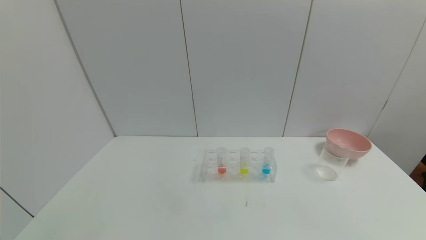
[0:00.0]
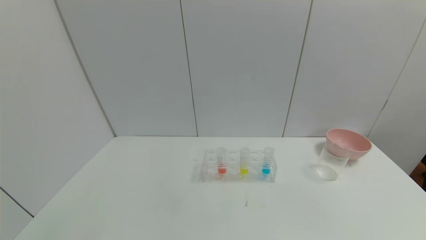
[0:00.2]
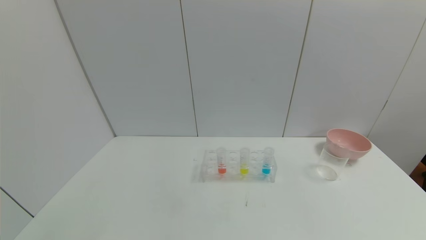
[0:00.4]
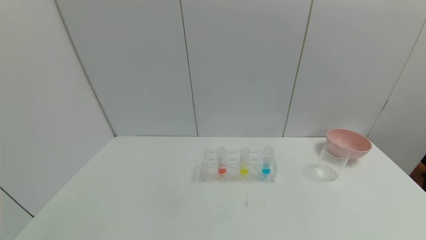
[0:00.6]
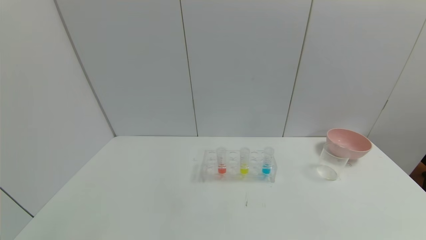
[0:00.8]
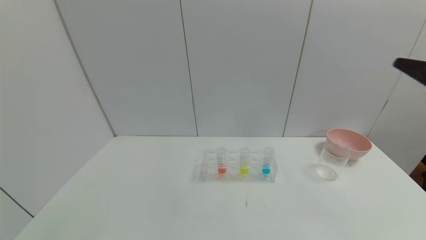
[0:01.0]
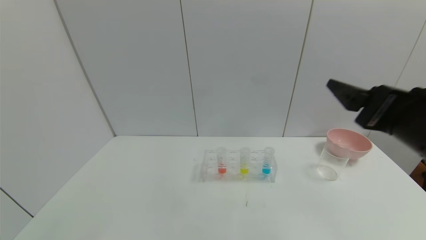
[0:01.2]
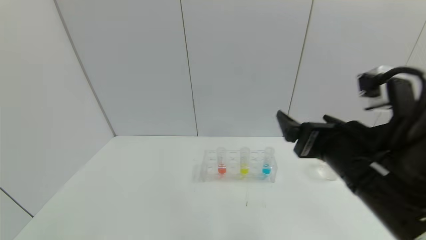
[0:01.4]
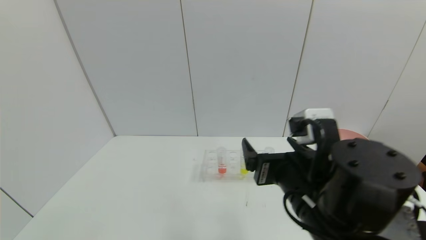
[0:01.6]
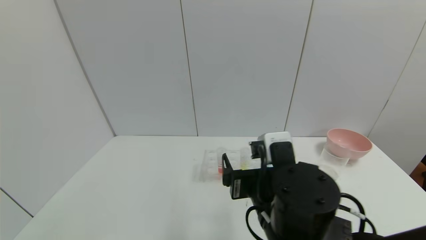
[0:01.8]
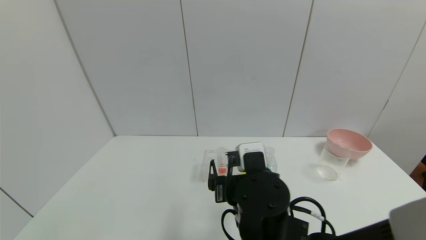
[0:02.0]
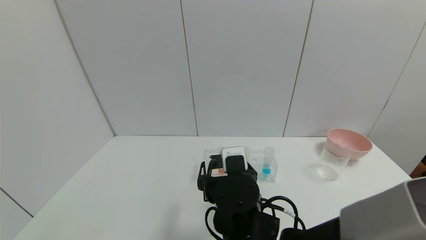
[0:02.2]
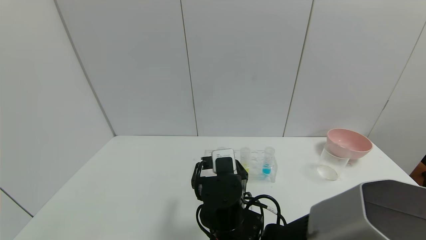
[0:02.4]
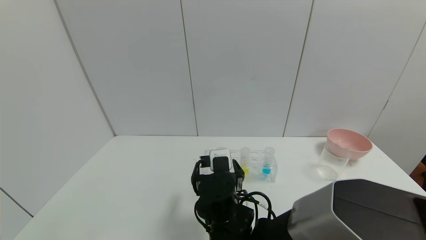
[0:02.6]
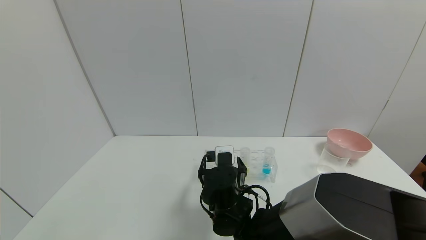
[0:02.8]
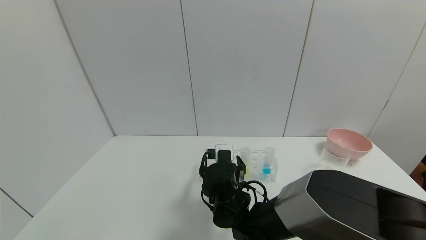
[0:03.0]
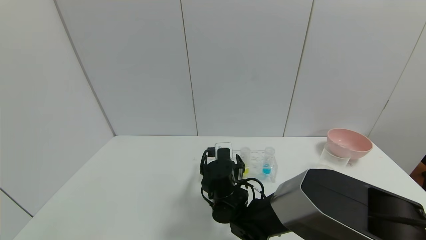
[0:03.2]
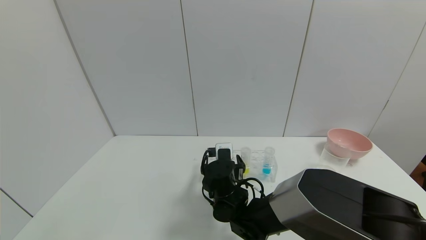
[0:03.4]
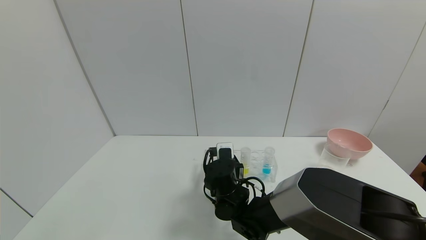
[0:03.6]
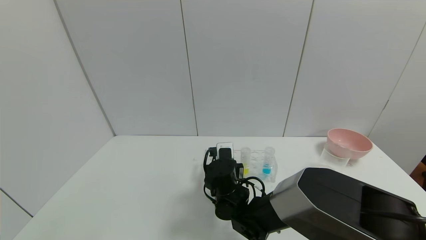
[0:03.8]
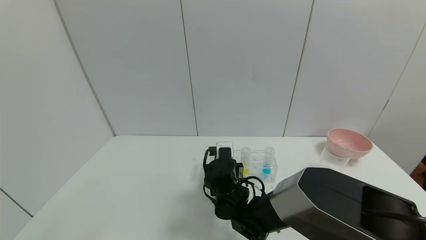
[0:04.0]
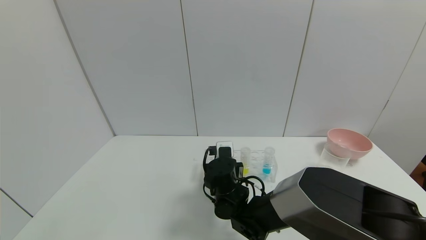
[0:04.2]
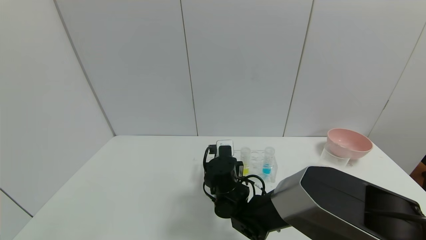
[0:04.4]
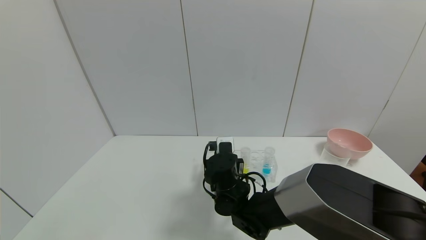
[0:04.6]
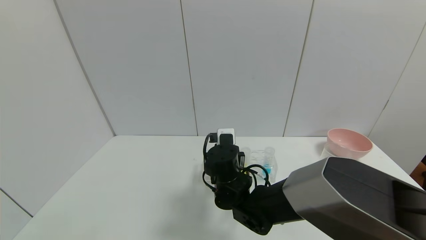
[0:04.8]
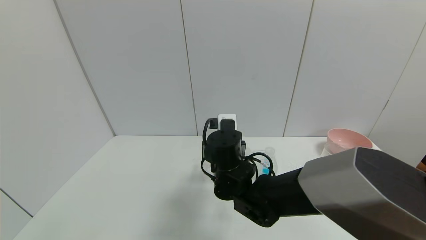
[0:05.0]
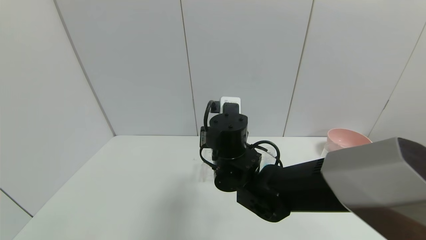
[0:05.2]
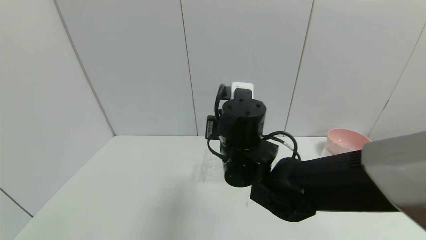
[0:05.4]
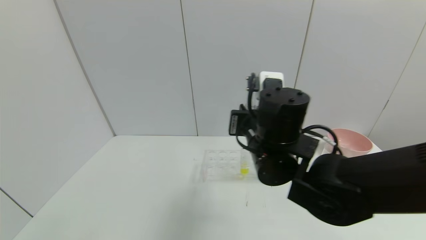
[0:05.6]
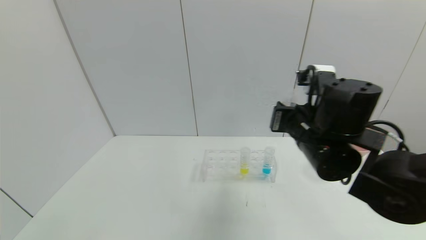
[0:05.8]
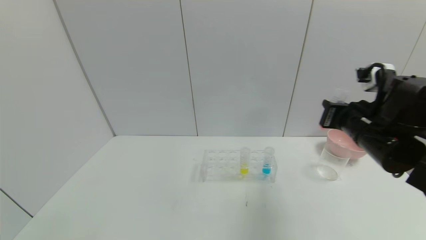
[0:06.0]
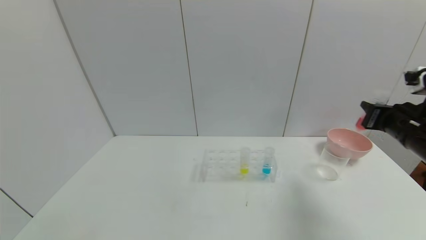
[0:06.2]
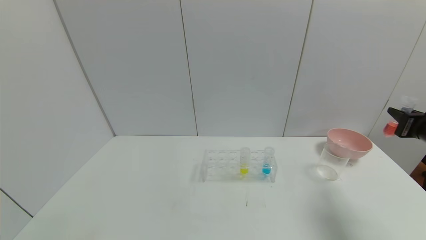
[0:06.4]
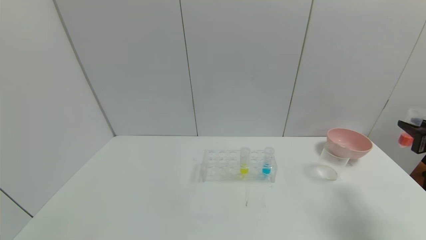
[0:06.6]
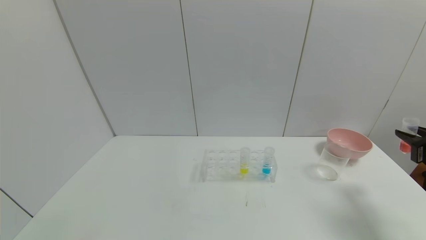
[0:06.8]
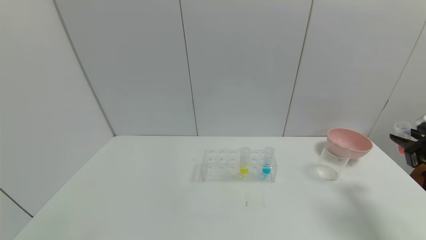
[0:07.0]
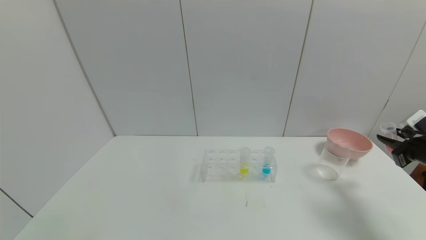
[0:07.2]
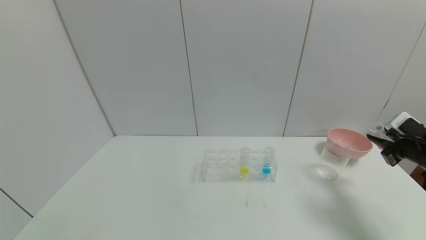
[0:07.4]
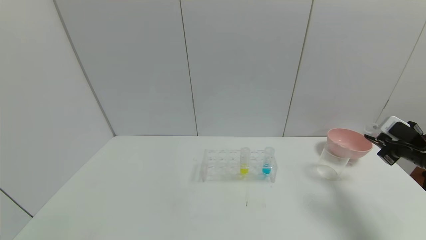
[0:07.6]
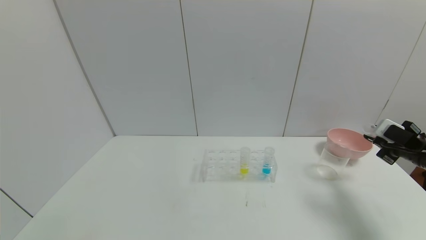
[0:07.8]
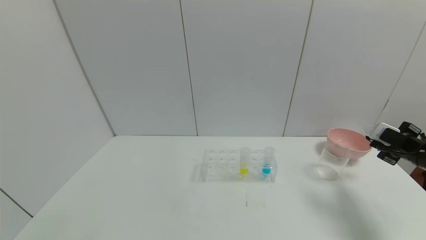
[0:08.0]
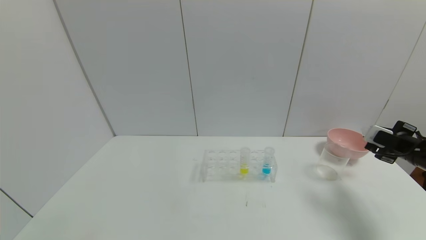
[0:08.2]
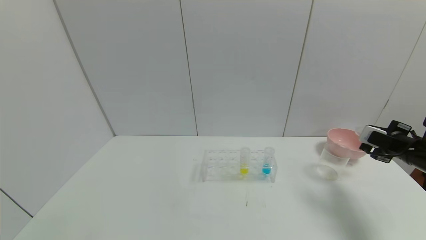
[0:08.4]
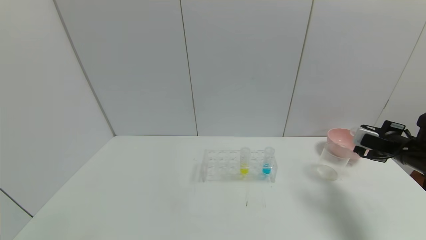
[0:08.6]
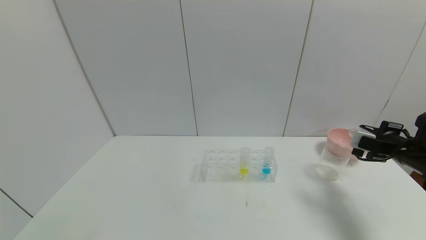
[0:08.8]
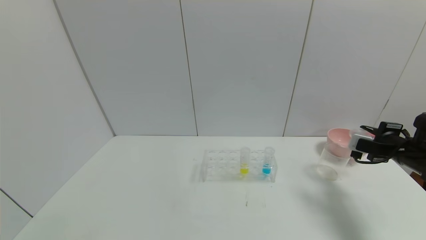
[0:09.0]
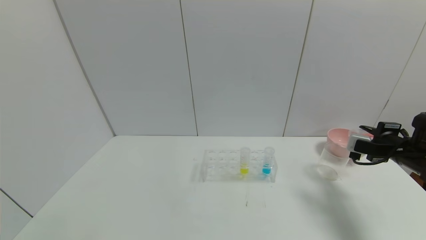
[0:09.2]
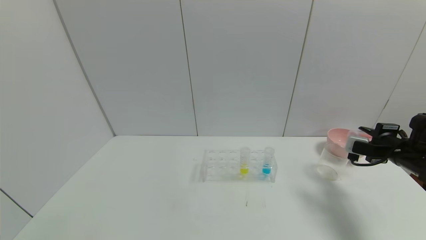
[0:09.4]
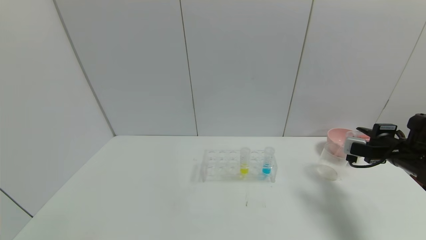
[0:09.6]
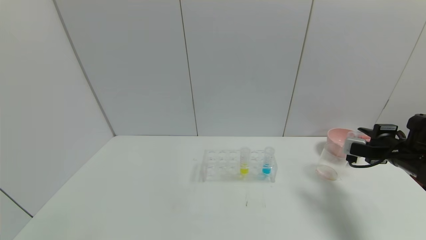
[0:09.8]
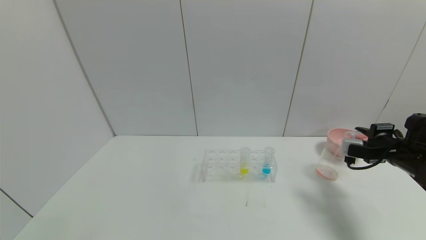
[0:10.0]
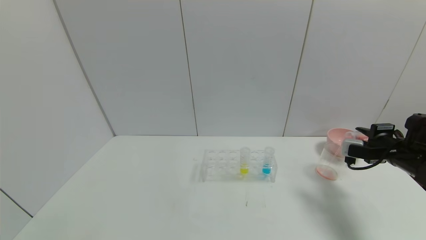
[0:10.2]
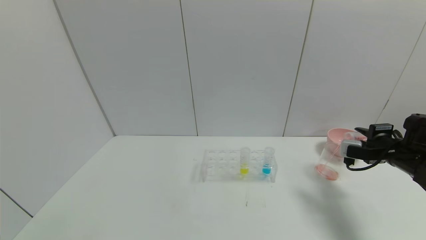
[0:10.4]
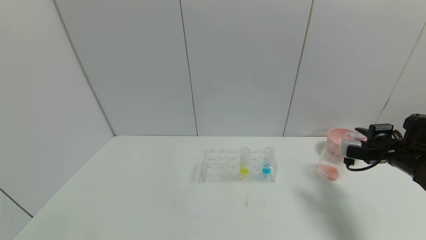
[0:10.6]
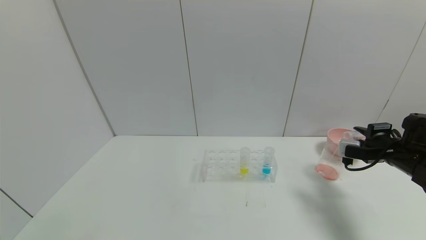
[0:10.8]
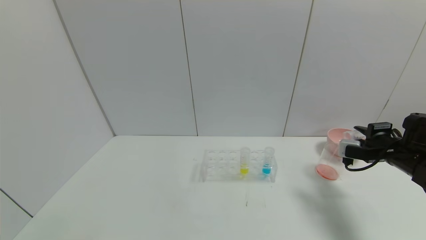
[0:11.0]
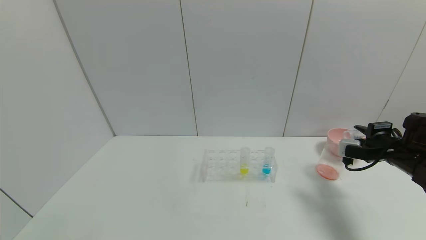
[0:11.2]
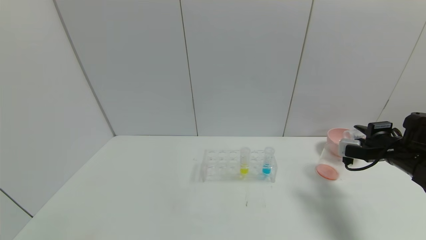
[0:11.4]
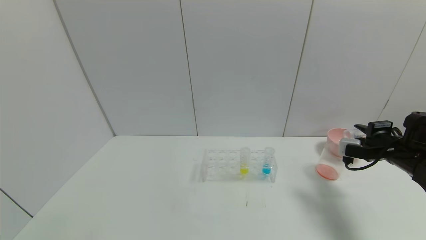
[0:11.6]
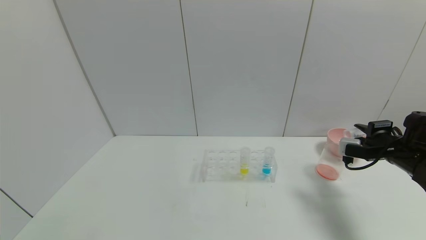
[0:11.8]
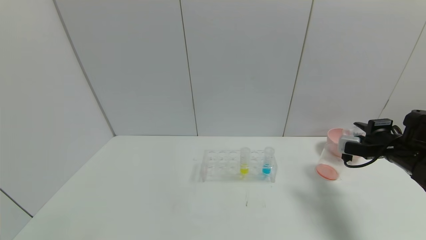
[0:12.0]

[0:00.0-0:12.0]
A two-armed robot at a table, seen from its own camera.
Task of the whole recording: pick up the test tube with yellow pigment and the test tube with red pigment by grippers and pour them into the beaker.
Step, 0:00.0 to 0:05.8: Pick up the test tube containing the red reagent with right gripper.
0:00.0 to 0:01.6: The right gripper travels to the left and forward by some 35 cm.
0:01.6 to 0:03.0: The right gripper heads downward, forward and to the left, covering some 20 cm.
0:03.0 to 0:04.4: The right gripper closes its fingers.
0:04.4 to 0:06.0: The right gripper heads to the right and upward, covering roughly 30 cm.
0:06.0 to 0:07.6: The right gripper is displaced to the right and downward by some 20 cm.
0:09.0 to 0:10.4: The grippers move only a little.
0:10.4 to 0:12.0: The two grippers keep their place.

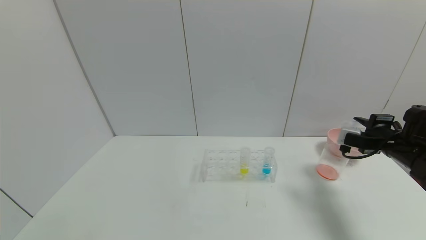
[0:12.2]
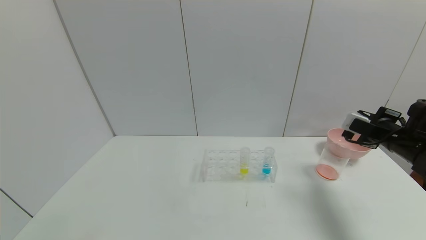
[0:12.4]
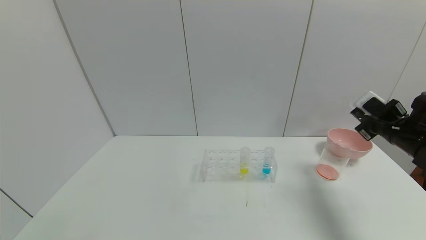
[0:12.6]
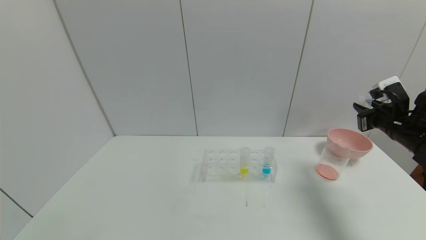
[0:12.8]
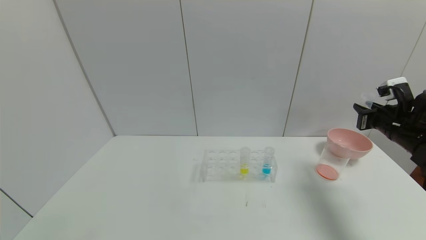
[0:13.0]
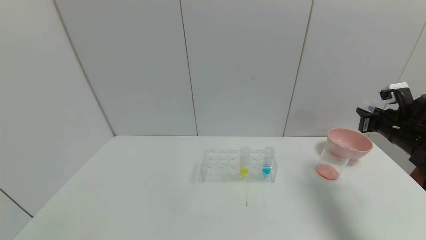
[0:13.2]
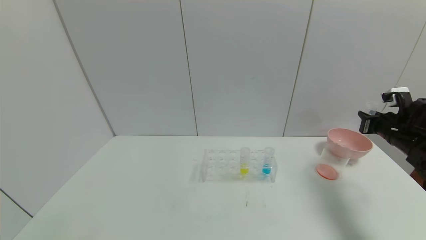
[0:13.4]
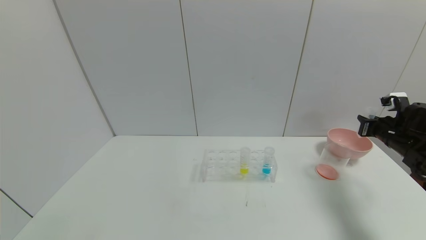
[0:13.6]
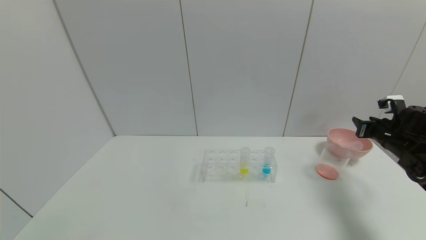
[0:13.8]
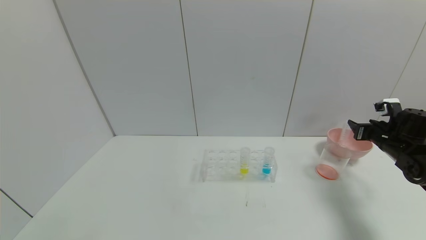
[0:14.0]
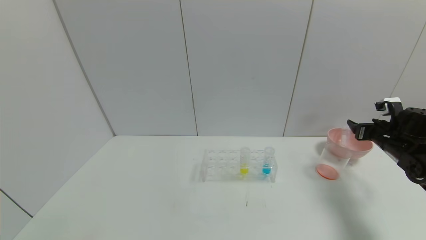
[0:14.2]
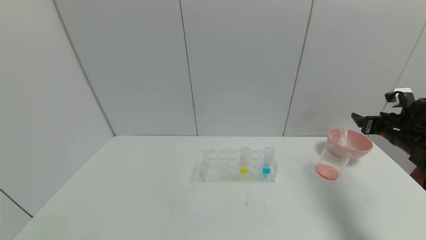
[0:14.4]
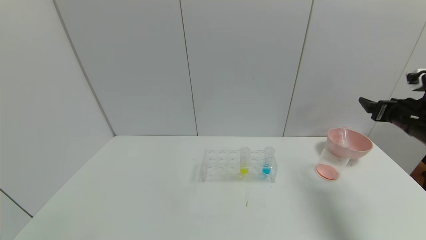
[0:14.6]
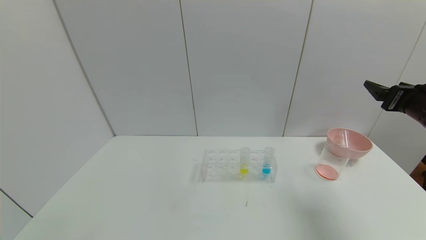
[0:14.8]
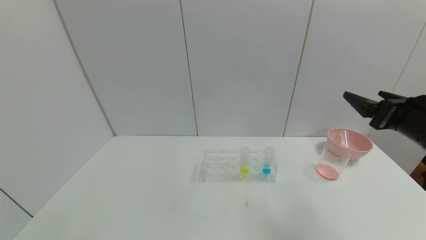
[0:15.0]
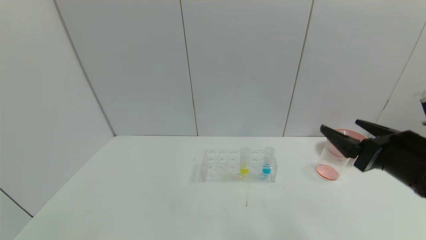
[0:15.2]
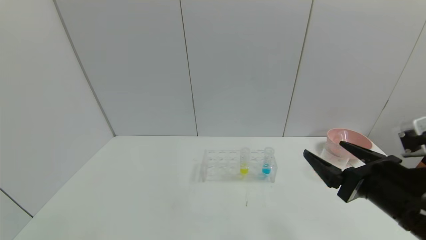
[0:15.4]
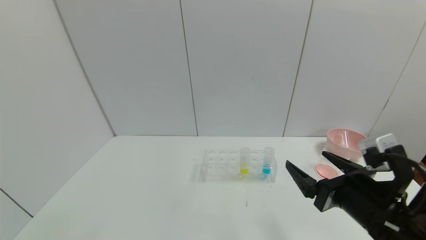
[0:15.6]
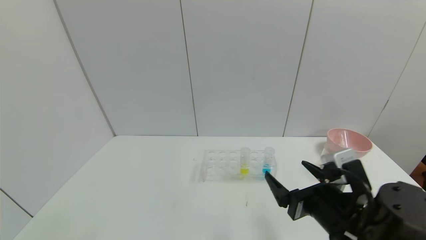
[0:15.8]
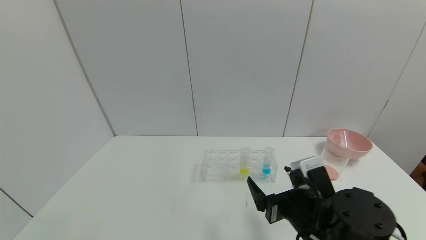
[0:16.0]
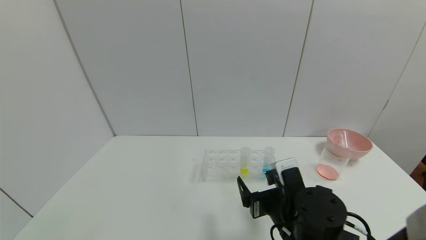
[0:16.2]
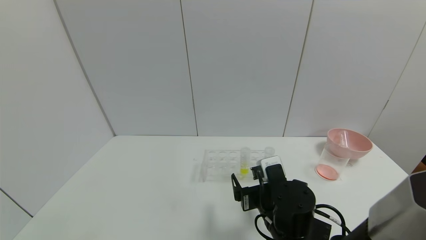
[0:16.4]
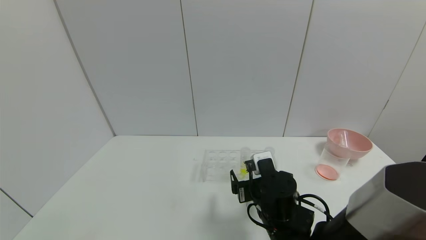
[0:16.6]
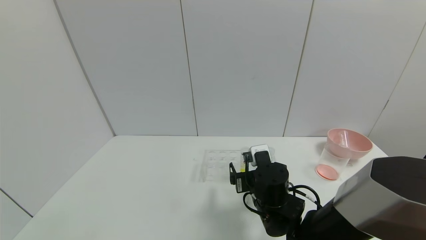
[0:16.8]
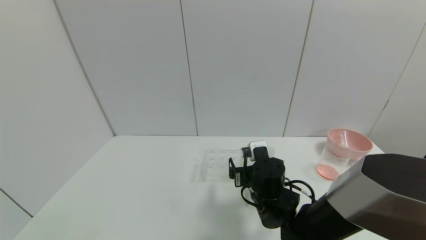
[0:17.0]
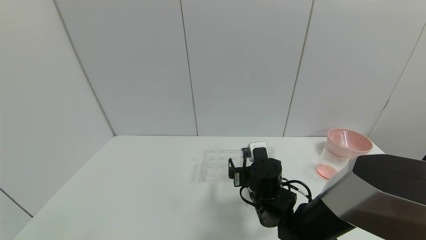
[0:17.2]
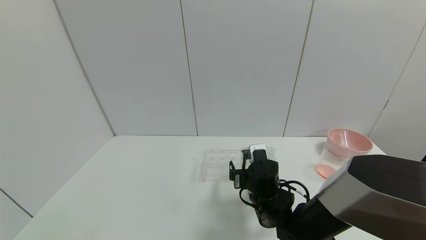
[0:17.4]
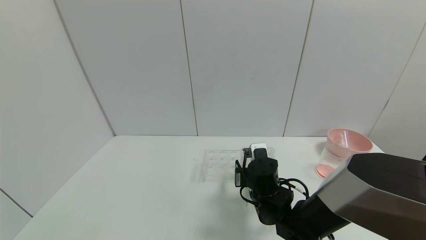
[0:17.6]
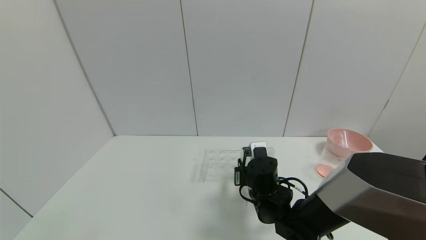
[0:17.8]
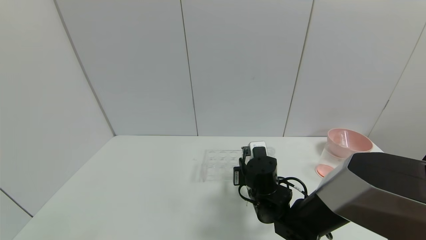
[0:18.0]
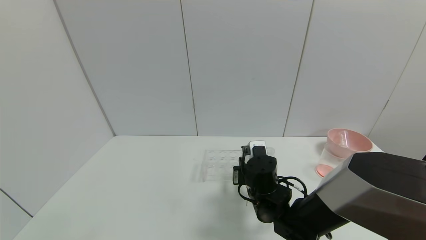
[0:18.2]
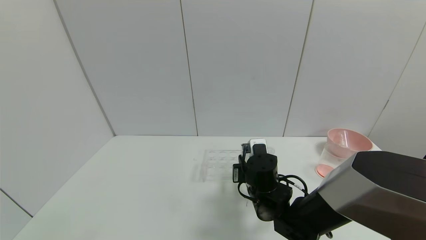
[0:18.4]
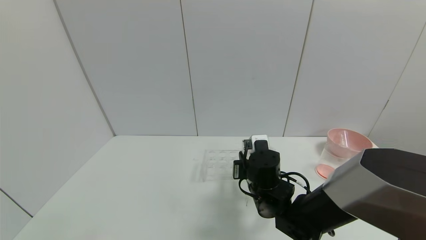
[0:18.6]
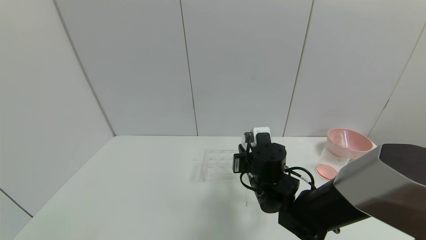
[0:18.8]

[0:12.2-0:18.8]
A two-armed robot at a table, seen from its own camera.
Task of the whole recording: pick up the test tube with yellow pigment and the test tube with red pigment by grippers and pour them into the beaker.
Step, 0:13.6 to 0:15.4: Place the test tube into the bowl with right gripper.
0:12.2 to 0:13.8: The right gripper changes place by approximately 5 cm, and opens.
0:13.8 to 0:15.4: The right gripper travels backward and to the left by approximately 30 cm, and opens.
0:15.4 to 0:17.2: The right gripper goes about 25 cm to the left, forward and downward.
0:17.2 to 0:18.8: The right gripper closes.
